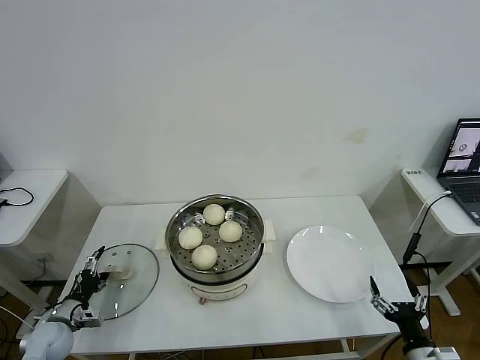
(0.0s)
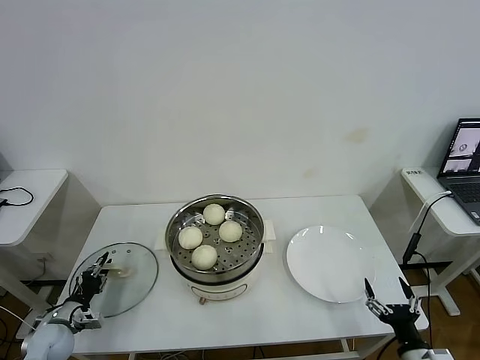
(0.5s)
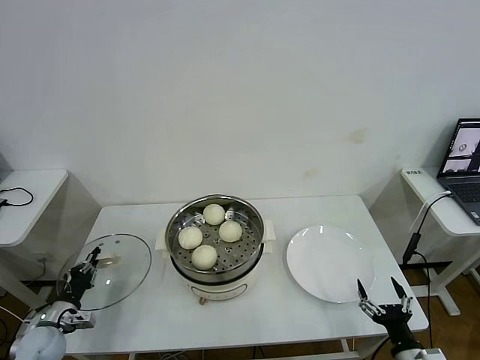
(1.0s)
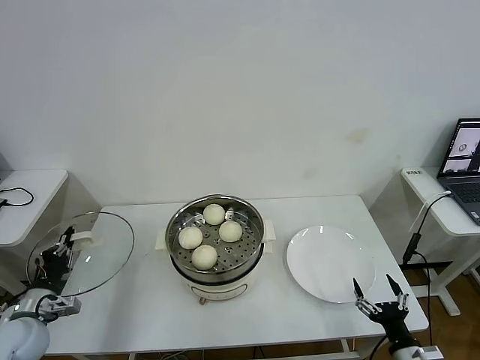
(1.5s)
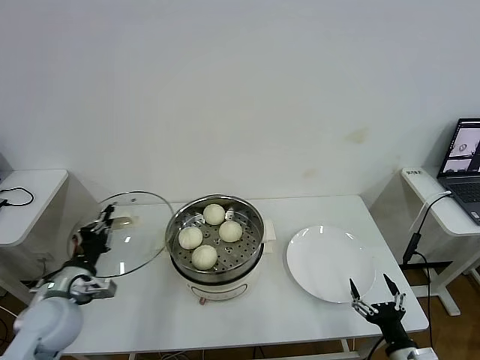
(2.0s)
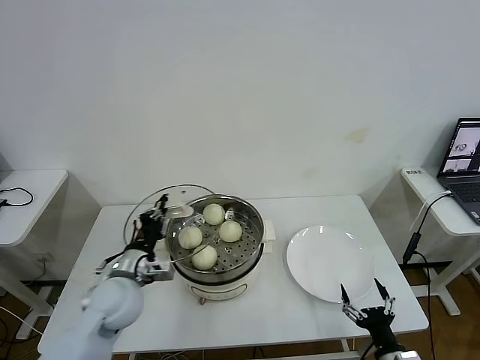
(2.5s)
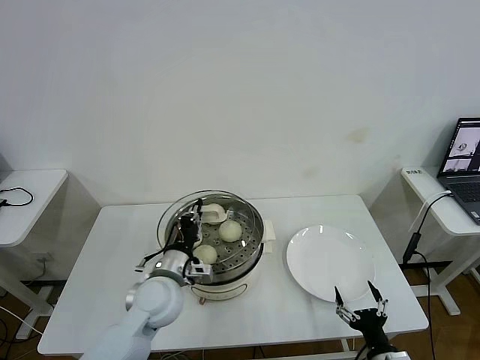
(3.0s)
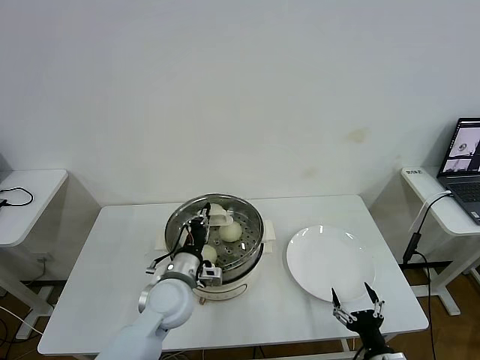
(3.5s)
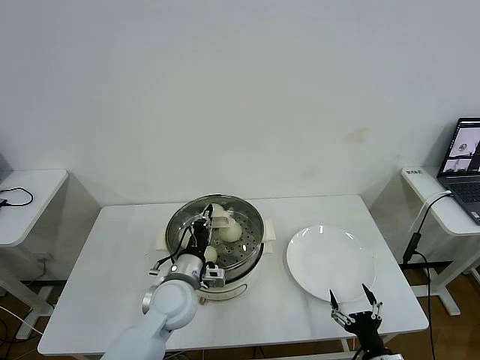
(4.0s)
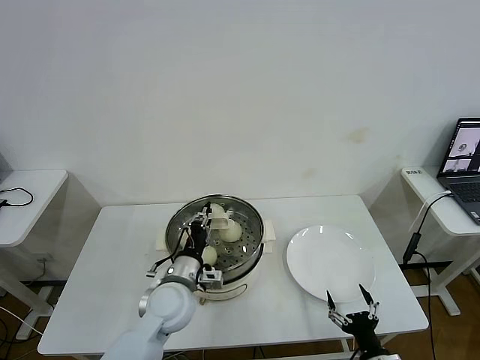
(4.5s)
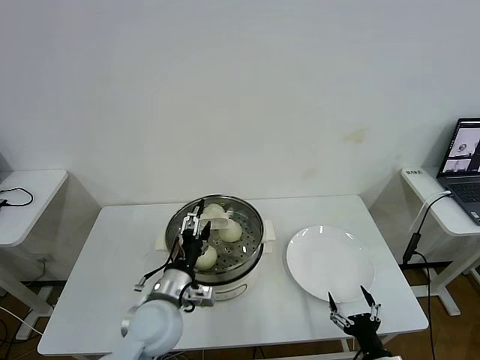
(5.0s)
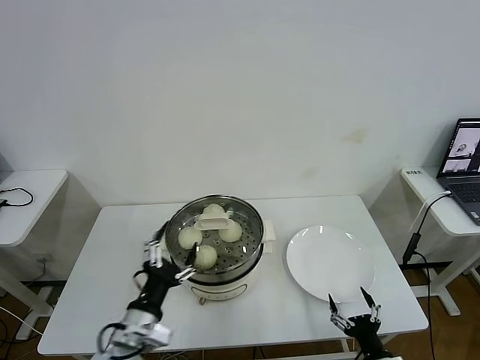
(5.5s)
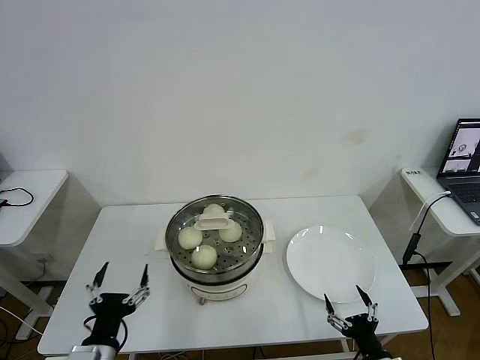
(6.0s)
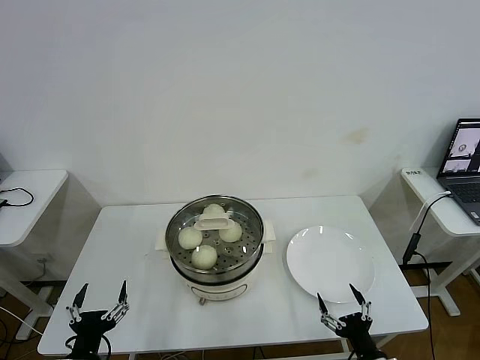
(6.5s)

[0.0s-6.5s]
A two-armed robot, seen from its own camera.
Task of the whole recording: take steamed baozi put them in steamer then cover it.
Step, 1.0s to 5.0s: Place the pot lid on the steamer with left gripper.
0.0s to 2.0s: The left gripper shifts roughly 20 cm upward and to the right, and closes its fingers.
2.0s to 4.5s: The right gripper moves roughly 5 cm, while the left gripper moves to the right, roughly 20 cm.
4.5s to 6.5s: The left gripper is displaced backward and to the left by some 25 cm, and opens.
